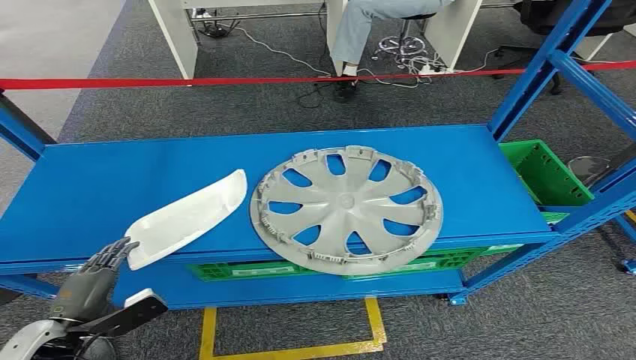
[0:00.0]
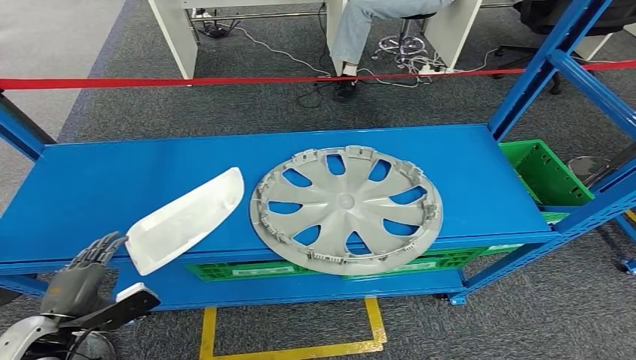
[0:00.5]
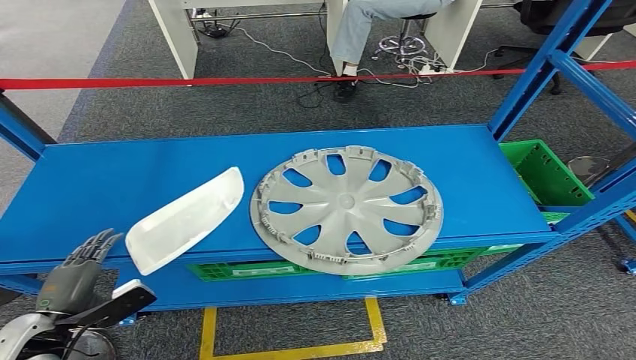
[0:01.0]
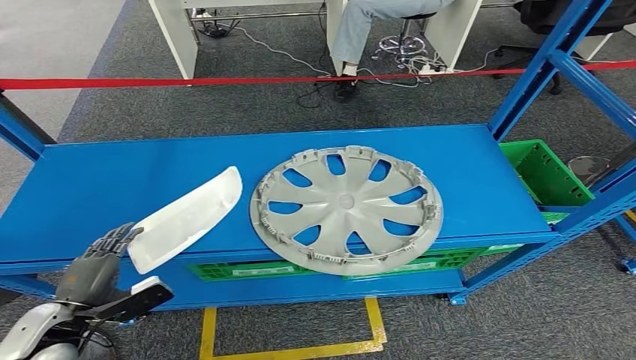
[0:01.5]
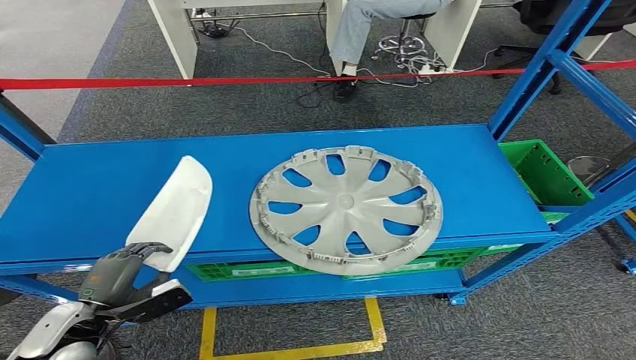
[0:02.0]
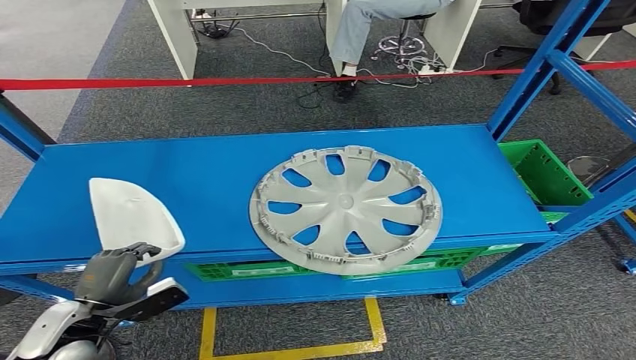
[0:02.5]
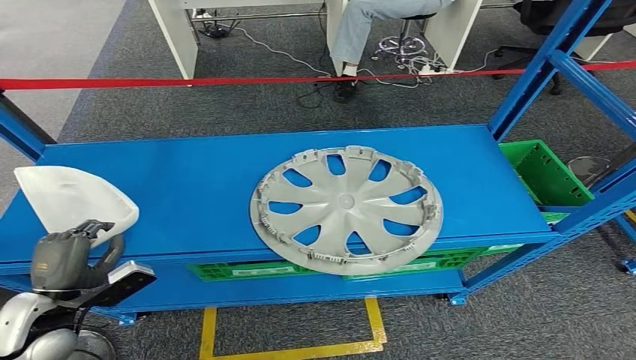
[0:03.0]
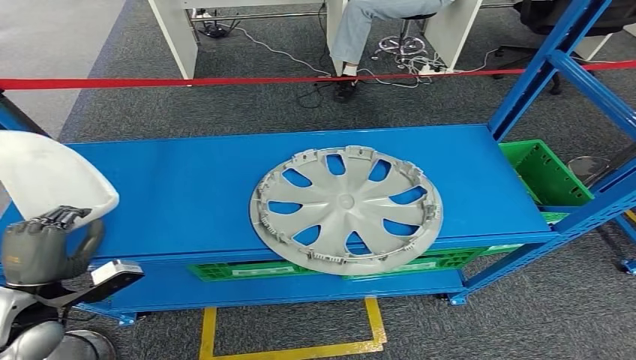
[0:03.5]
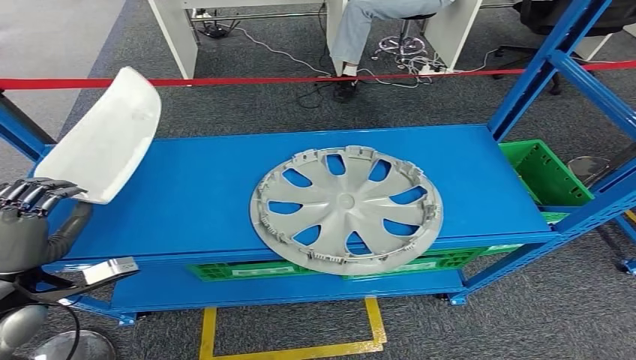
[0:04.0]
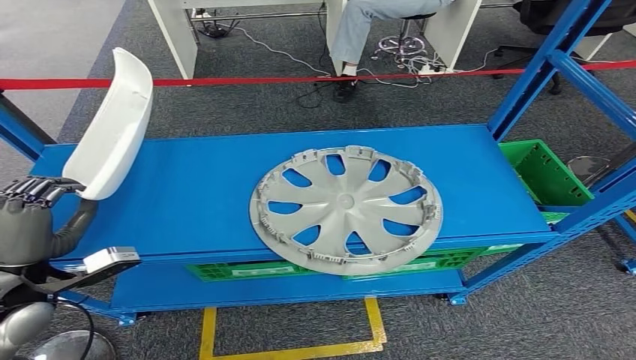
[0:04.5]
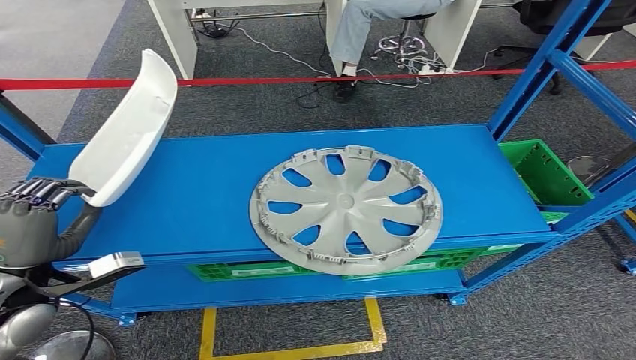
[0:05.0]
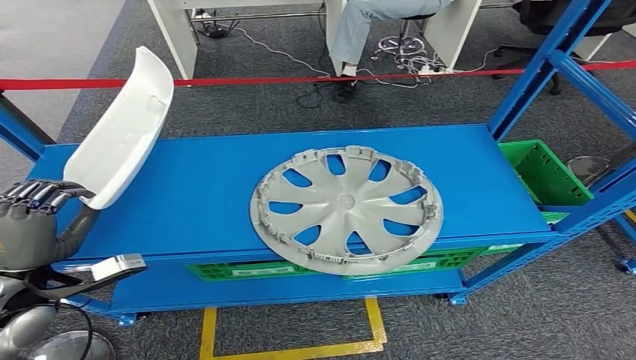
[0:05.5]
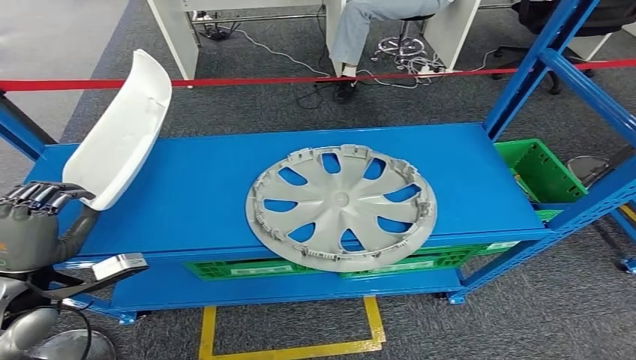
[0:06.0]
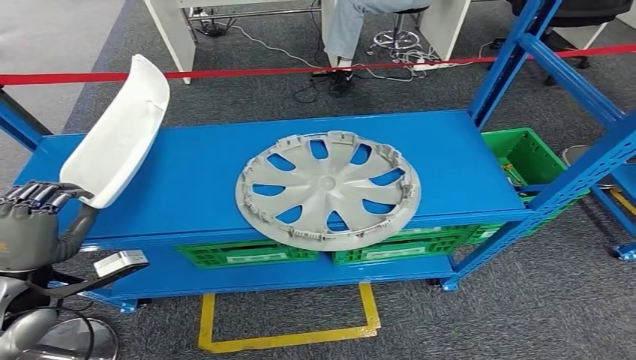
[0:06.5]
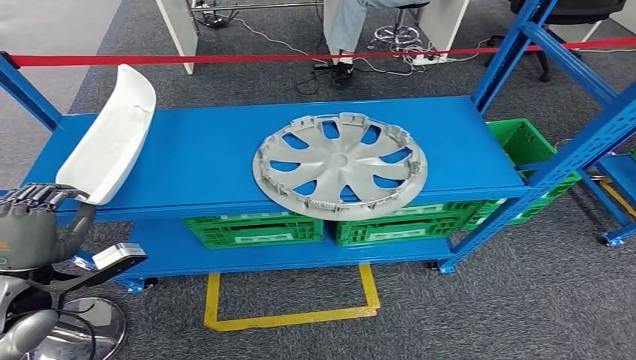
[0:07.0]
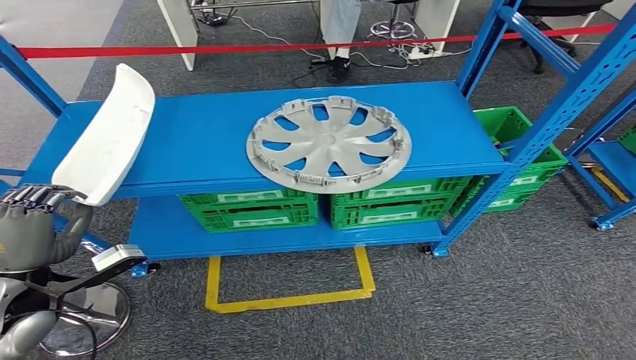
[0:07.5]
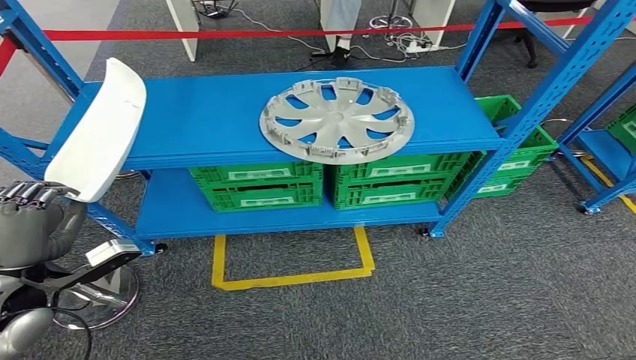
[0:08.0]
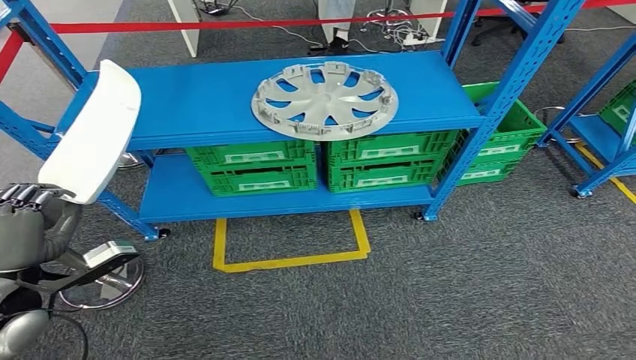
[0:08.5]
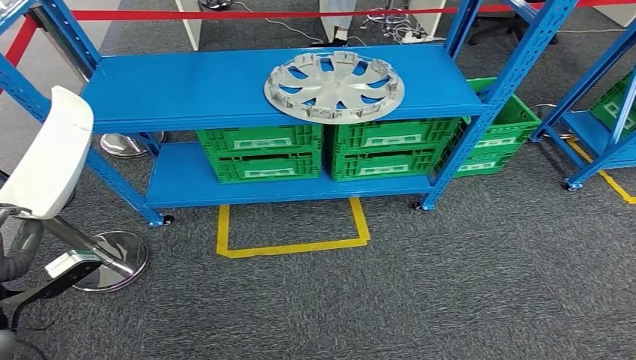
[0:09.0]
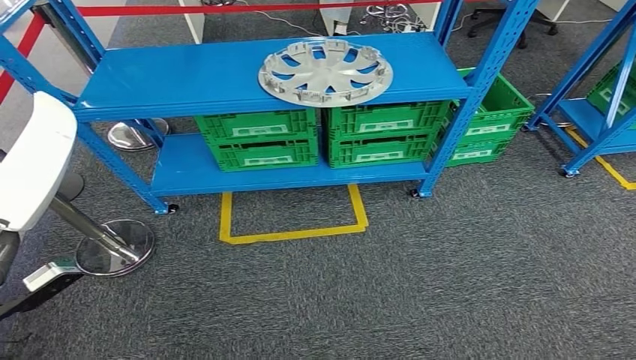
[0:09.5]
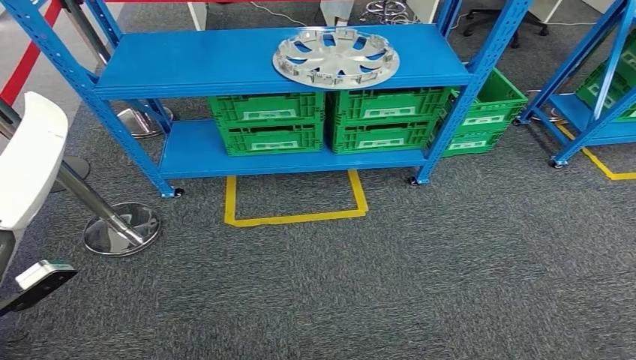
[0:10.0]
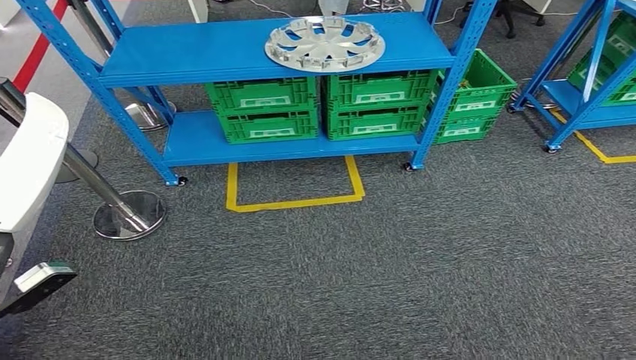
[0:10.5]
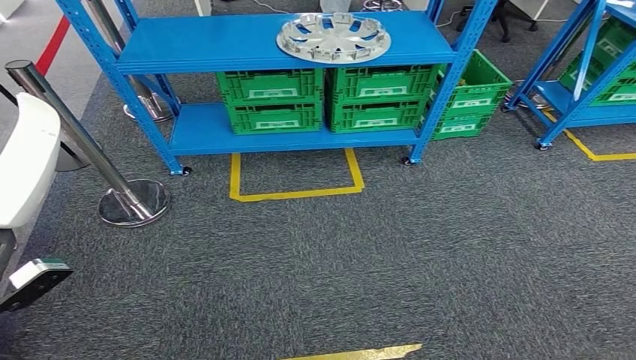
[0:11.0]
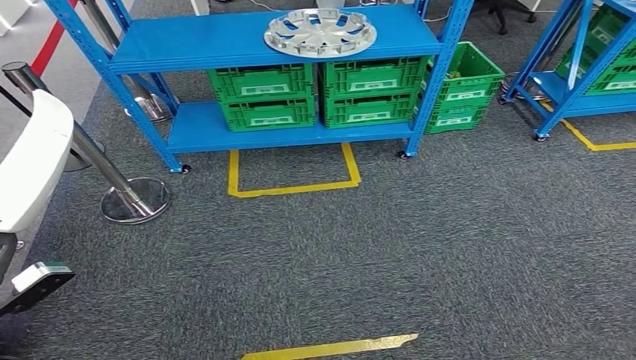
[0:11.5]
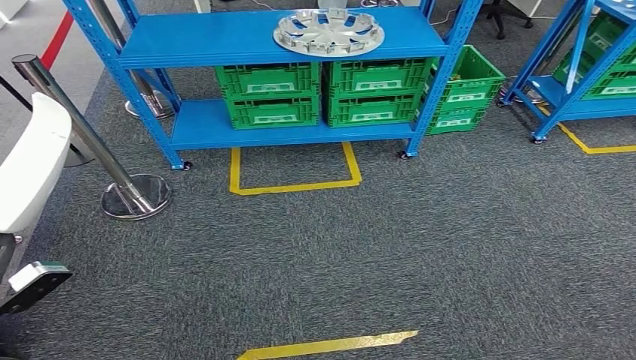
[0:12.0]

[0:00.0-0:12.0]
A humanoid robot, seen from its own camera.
Step, 0:00.0 to 0:05.5: Pick up the small component from the shelf.
0:02.0 to 0:04.0: The left hand shifts approximately 10 cm upward.
0:04.0 to 0:06.0: There are only small adjustments of the hands.

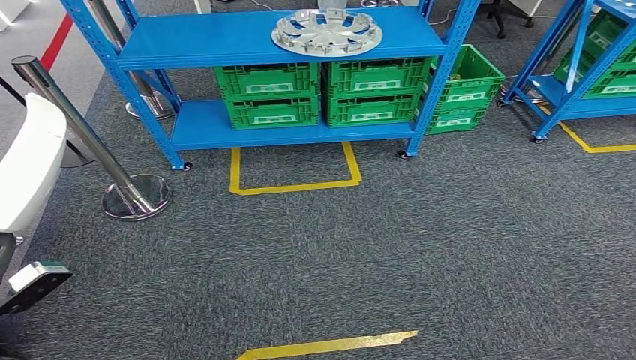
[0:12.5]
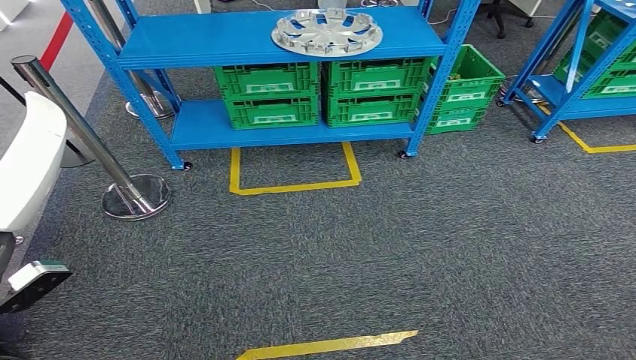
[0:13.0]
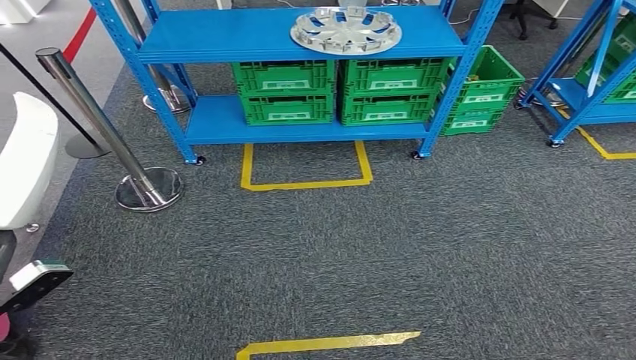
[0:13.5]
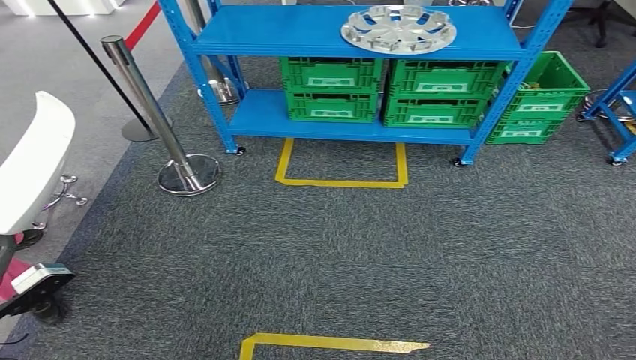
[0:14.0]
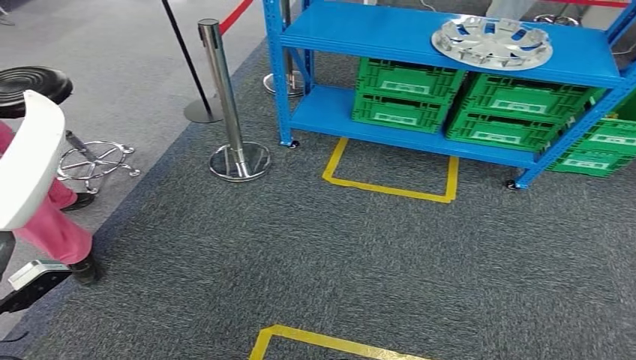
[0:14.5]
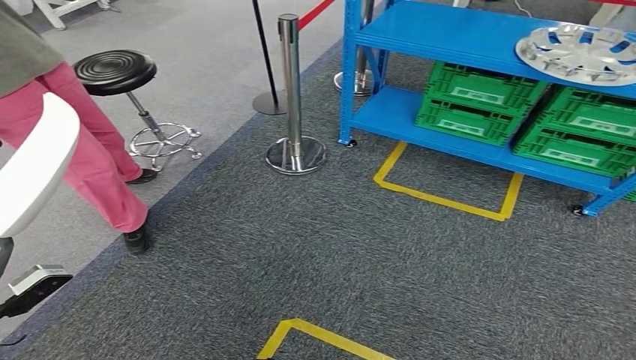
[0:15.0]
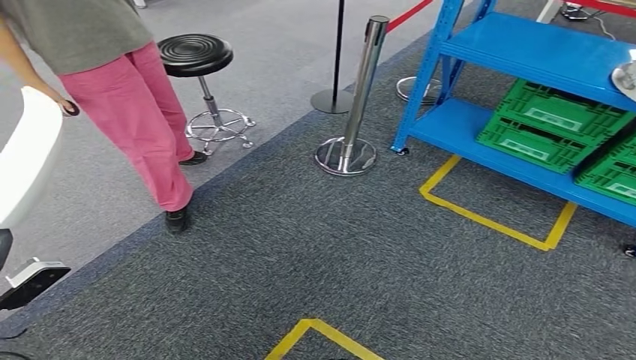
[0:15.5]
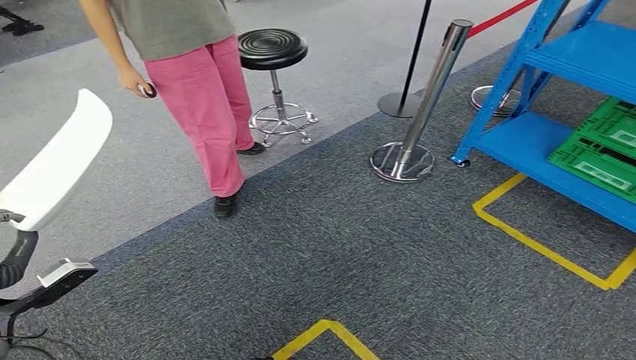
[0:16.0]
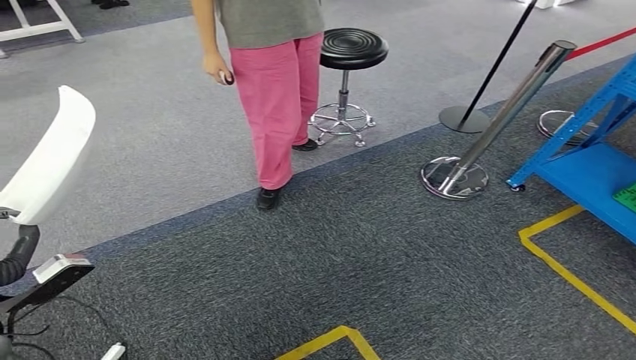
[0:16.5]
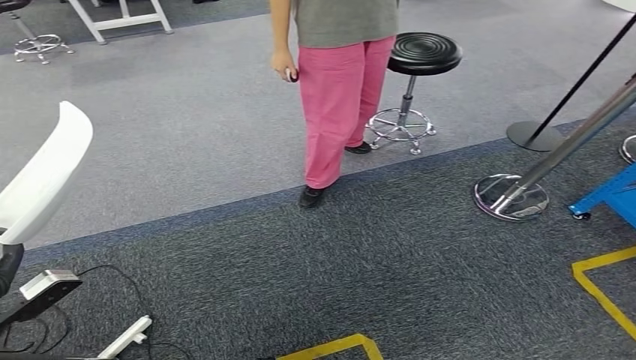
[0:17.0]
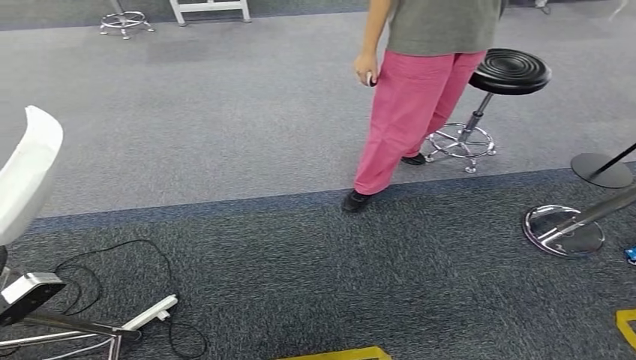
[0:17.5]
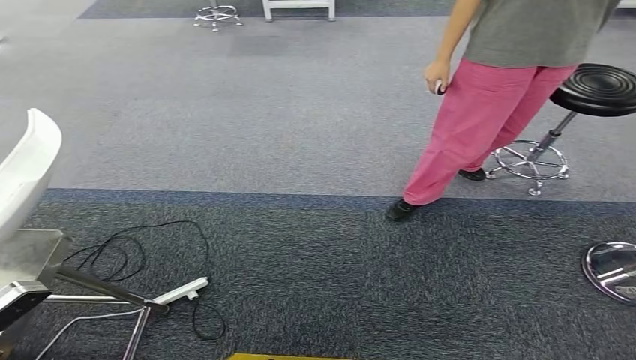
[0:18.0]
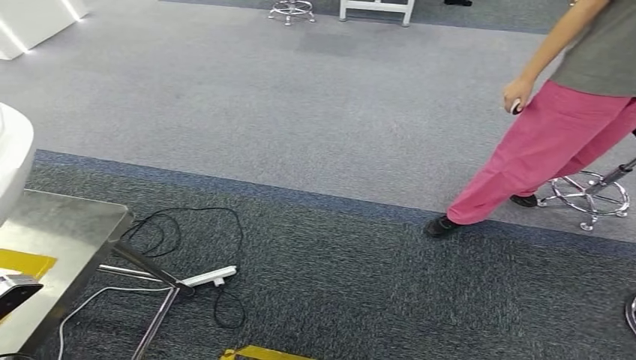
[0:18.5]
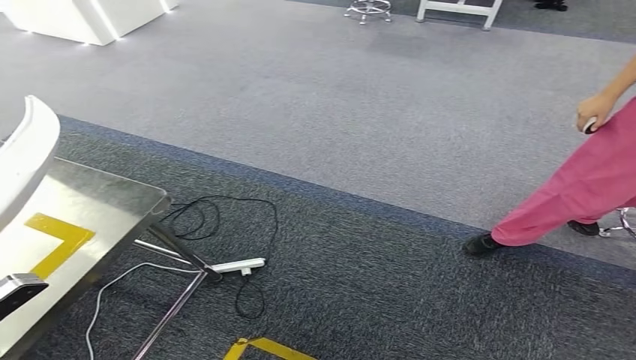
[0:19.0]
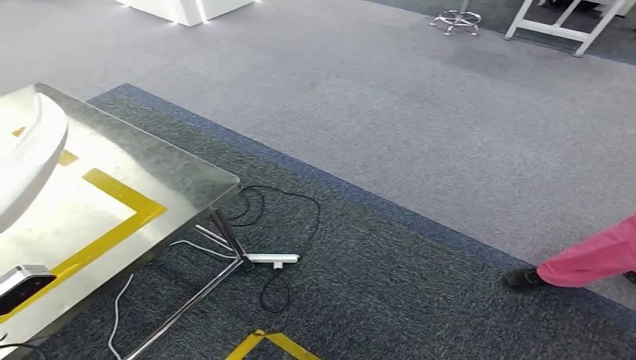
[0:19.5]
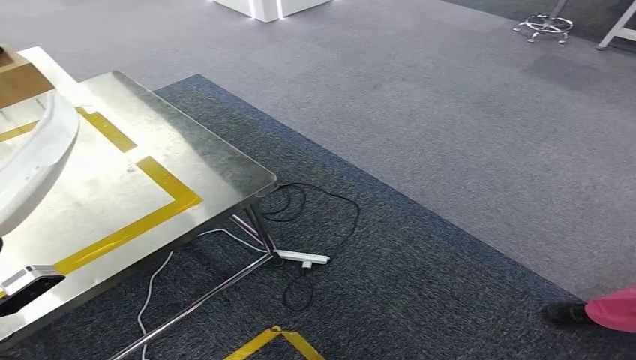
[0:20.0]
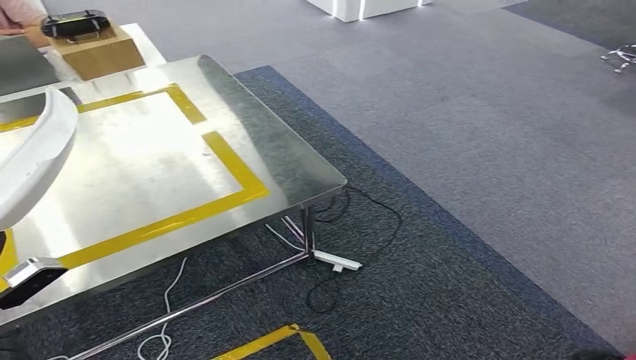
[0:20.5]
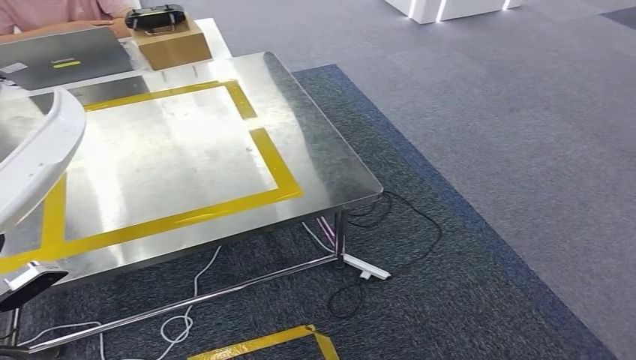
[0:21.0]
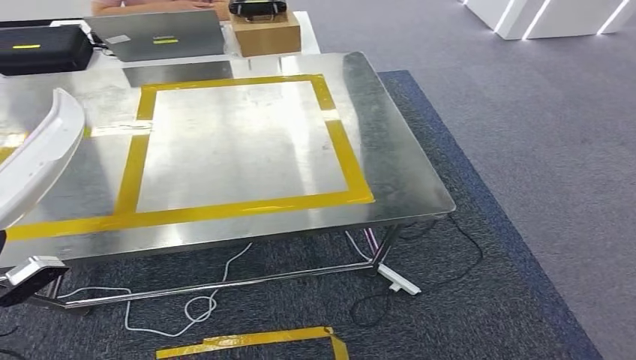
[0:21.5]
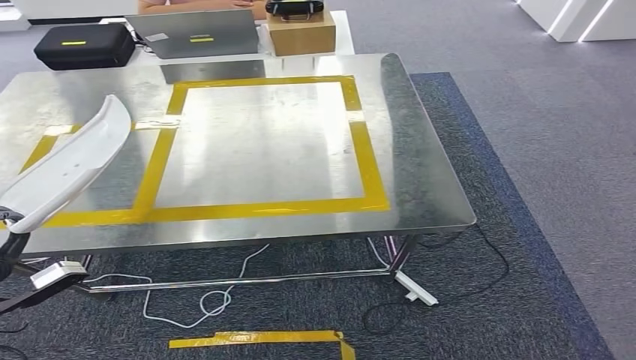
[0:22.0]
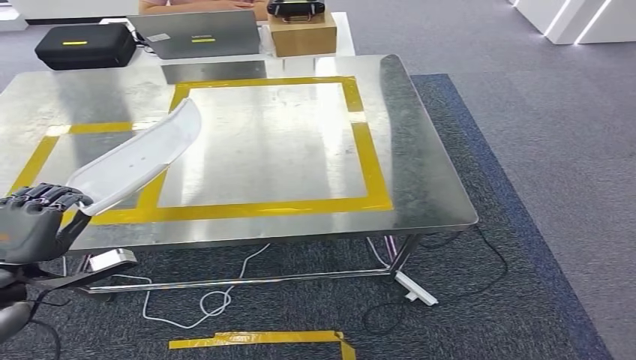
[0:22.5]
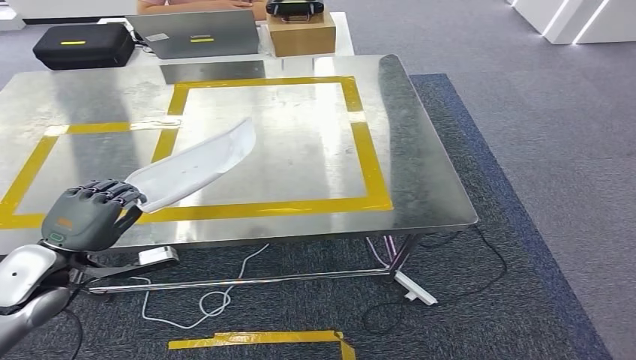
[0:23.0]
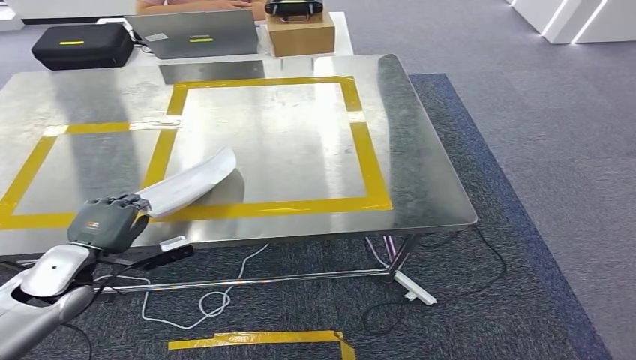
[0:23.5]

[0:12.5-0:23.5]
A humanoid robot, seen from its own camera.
Step, 0:12.5 to 0:22.0: Move the small component to the workbench.
